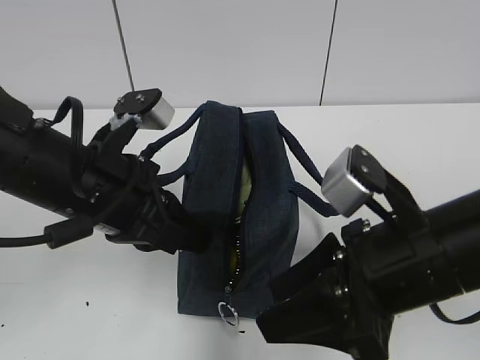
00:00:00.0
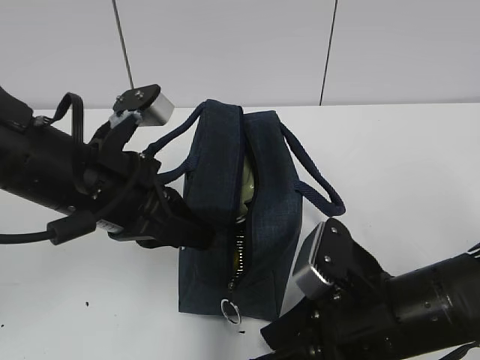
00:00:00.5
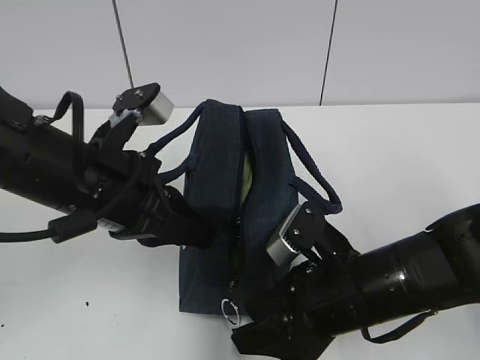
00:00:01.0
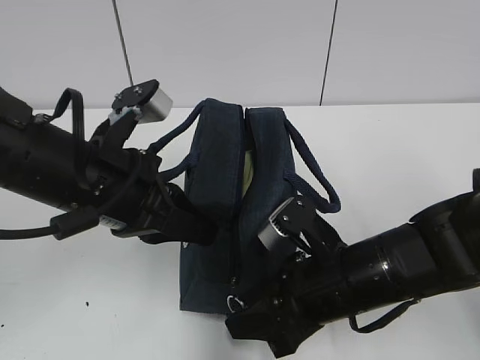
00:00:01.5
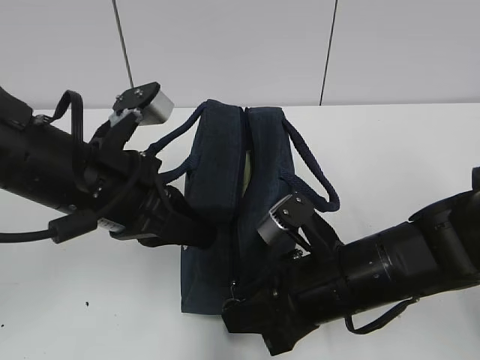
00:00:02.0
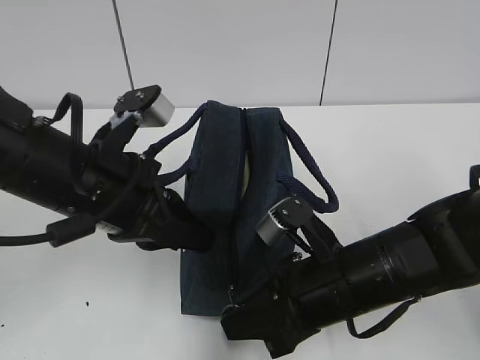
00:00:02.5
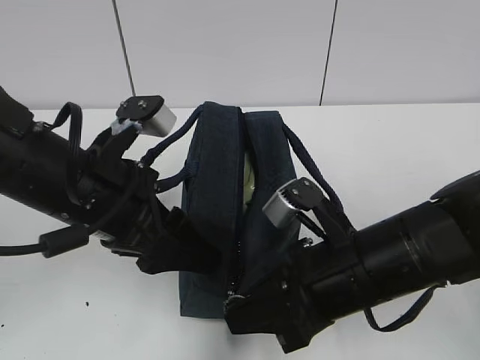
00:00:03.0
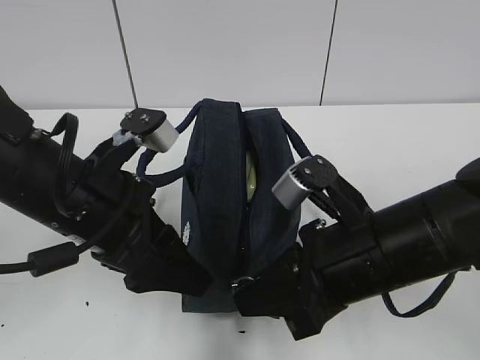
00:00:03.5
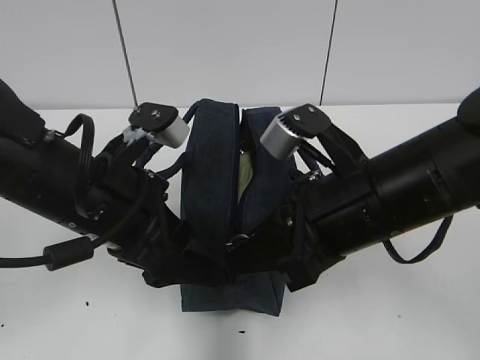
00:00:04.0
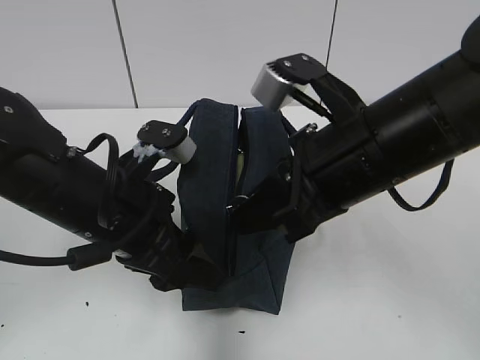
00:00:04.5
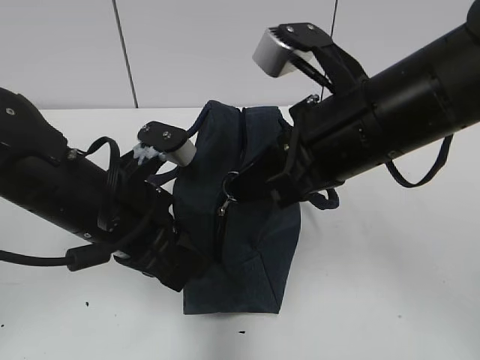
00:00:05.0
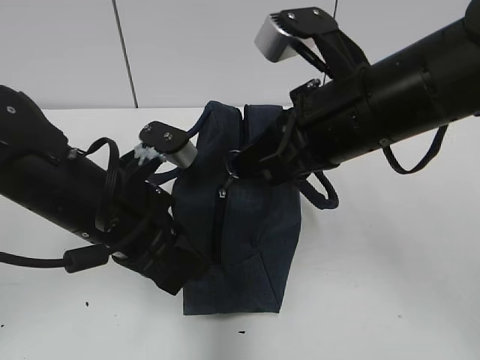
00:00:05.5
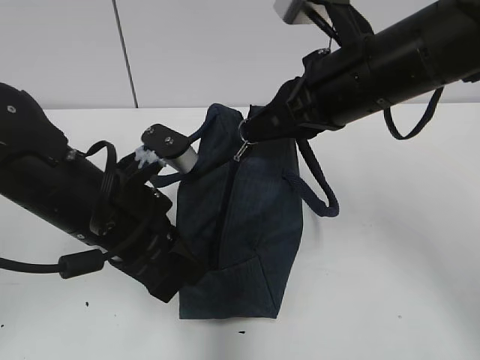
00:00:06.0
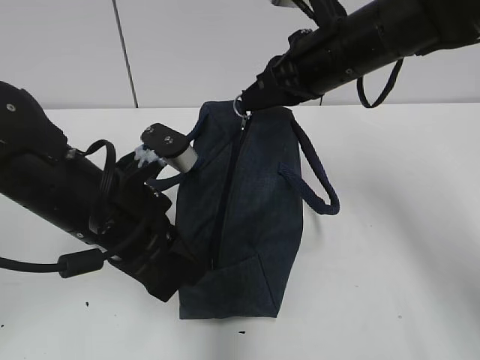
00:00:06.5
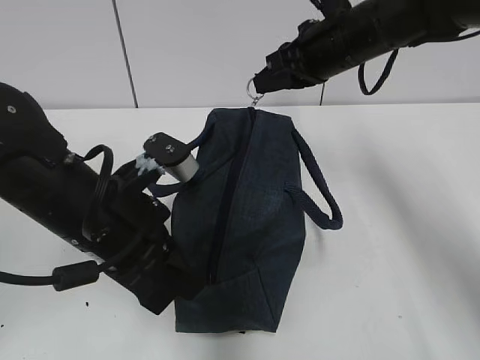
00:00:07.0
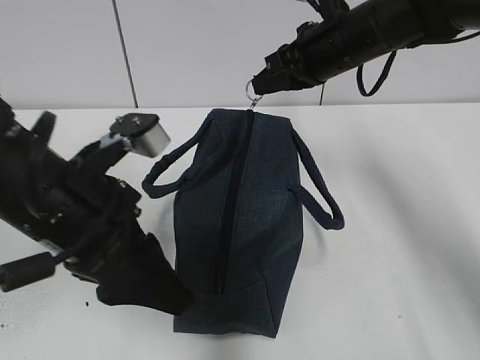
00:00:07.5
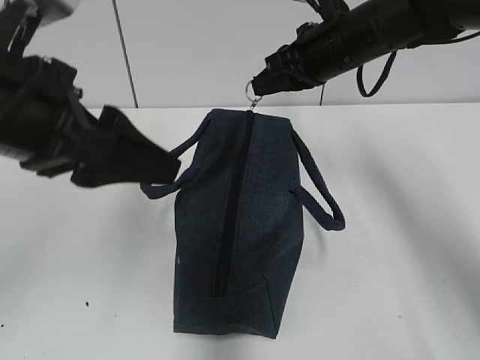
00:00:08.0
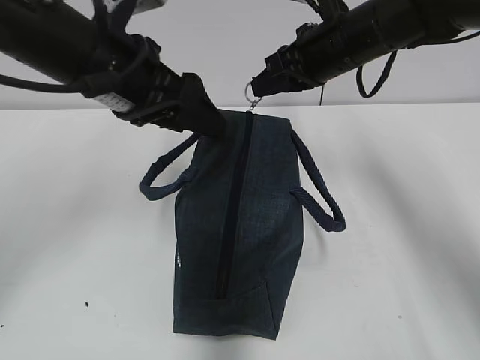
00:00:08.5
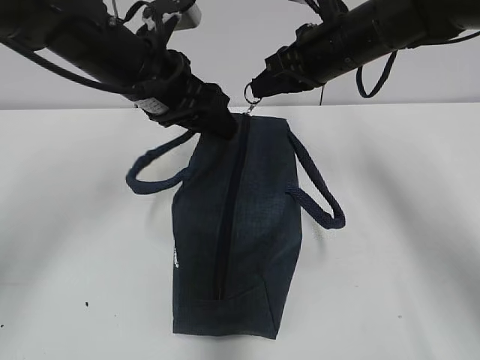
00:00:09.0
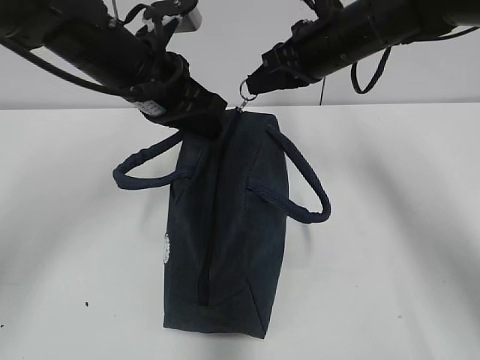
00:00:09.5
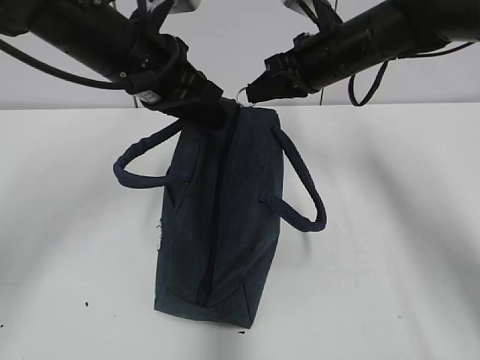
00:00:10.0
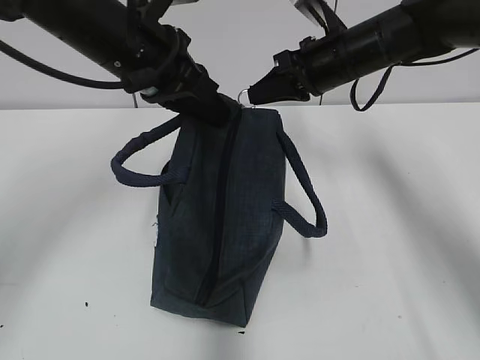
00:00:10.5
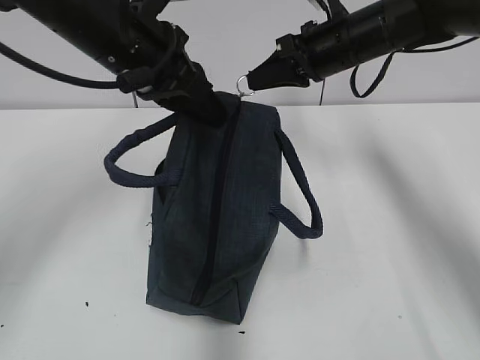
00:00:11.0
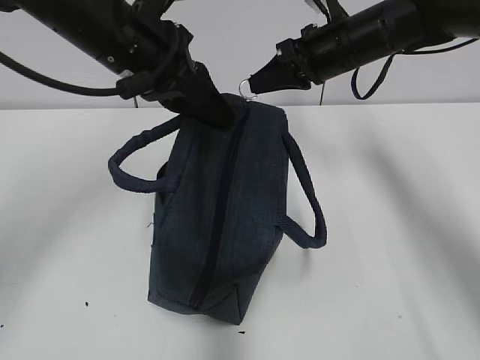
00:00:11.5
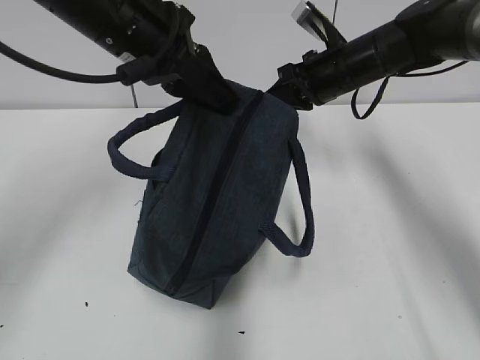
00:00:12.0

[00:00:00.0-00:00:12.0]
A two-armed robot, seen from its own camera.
00:00:00.0 to 00:00:02.0: The right gripper travels downward by roughly 10 cm, and closes.
00:00:02.0 to 00:00:04.0: The left gripper opens its fingers; the right gripper moves upward, some 10 cm.
00:00:04.0 to 00:00:06.0: The right gripper travels forward and upward by approximately 10 cm. Meanwhile the left gripper closes its fingers.
00:00:06.0 to 00:00:08.0: The left gripper goes roughly 15 cm upward, and opens its fingers, while the right gripper shifts approximately 10 cm forward.
00:00:08.0 to 00:00:10.0: The left gripper travels forward by approximately 15 cm, and closes up.

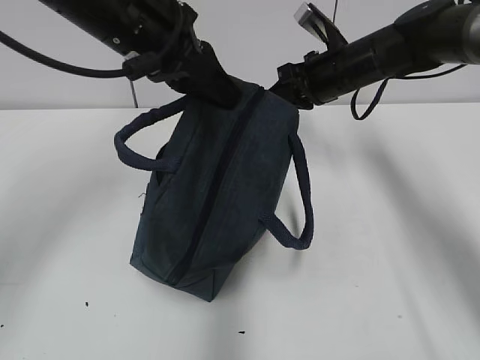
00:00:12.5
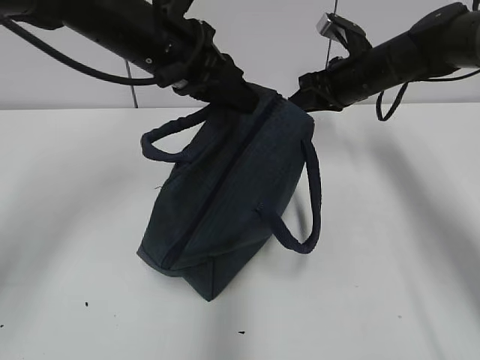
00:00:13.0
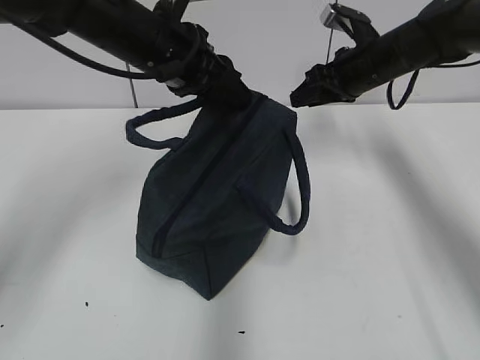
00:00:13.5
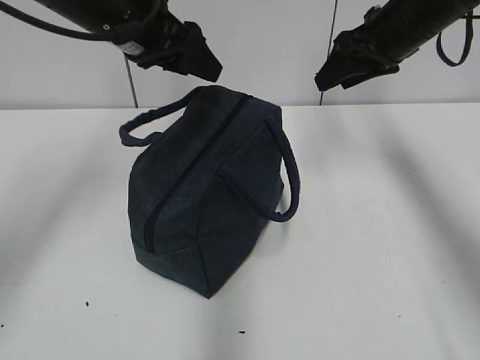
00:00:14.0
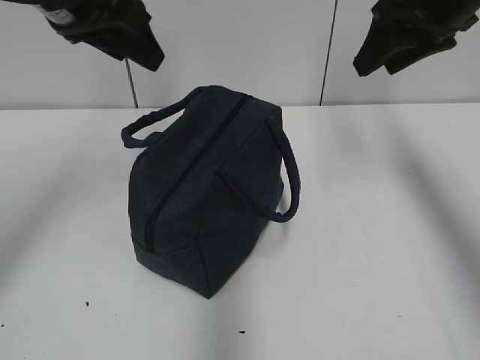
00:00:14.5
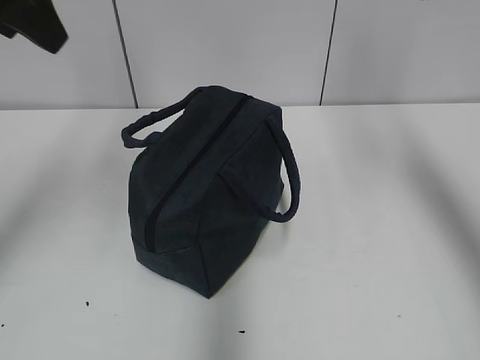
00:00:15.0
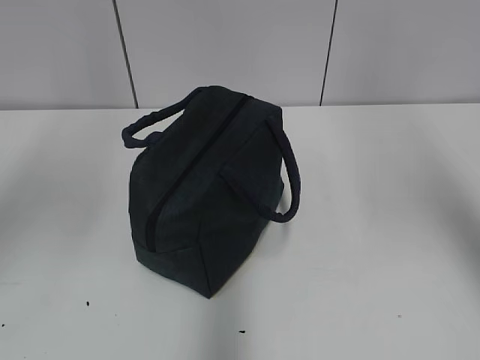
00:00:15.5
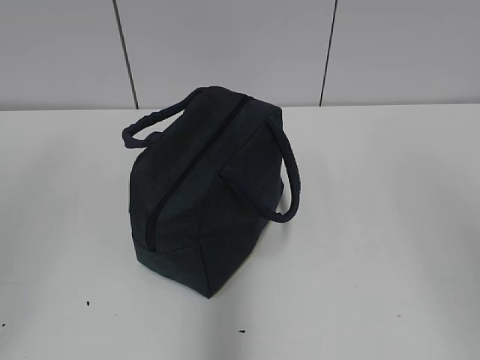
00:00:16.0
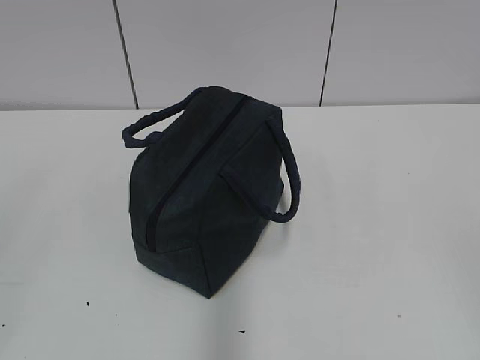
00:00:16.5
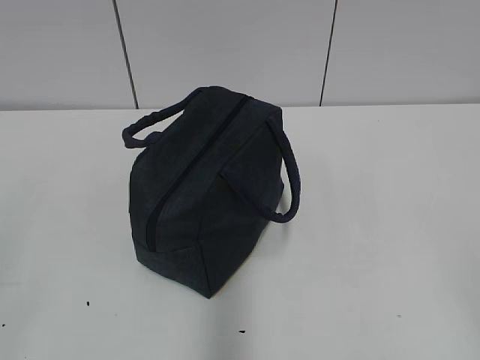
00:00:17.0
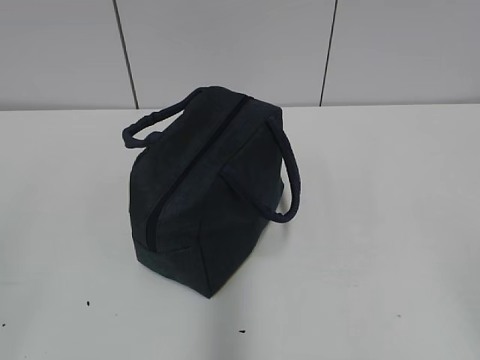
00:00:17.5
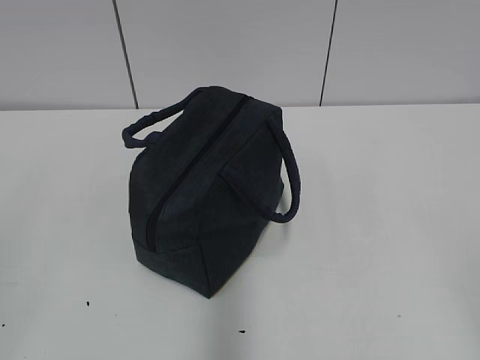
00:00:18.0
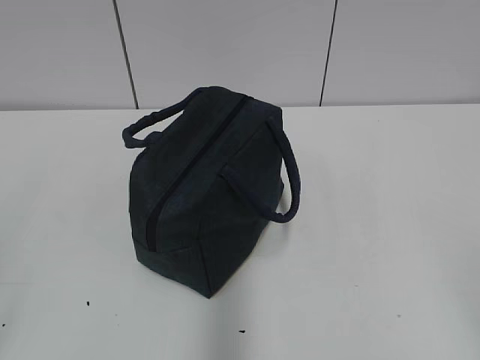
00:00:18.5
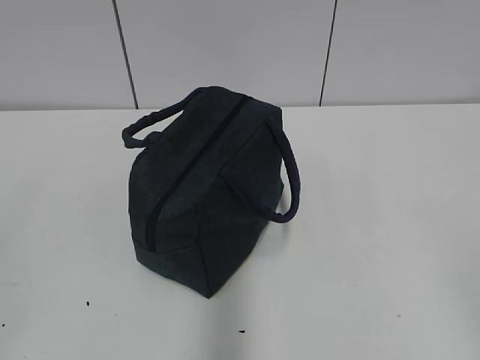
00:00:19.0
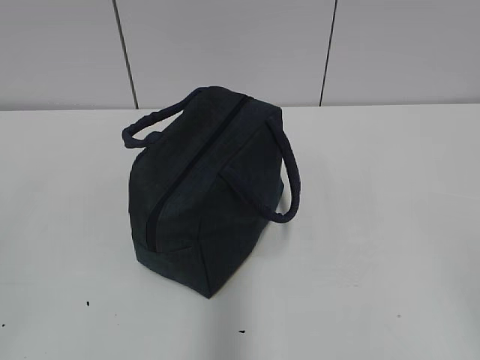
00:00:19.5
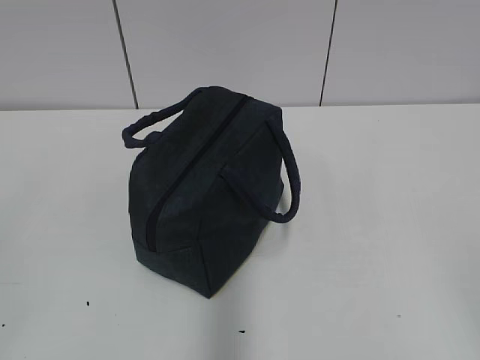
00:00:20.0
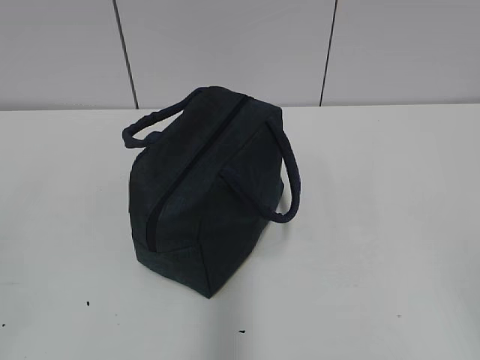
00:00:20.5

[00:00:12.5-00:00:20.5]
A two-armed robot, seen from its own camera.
00:00:12.5 to 00:00:14.5: The right gripper is displaced upward, backward and to the right by some 20 cm, and opens, while the left gripper moves to the left and upward, about 10 cm, and opens its fingers.
00:00:14.5 to 00:00:16.5: The right gripper heads backward, covering approximately 40 cm. The left gripper is displaced backward and to the left by roughly 40 cm.
